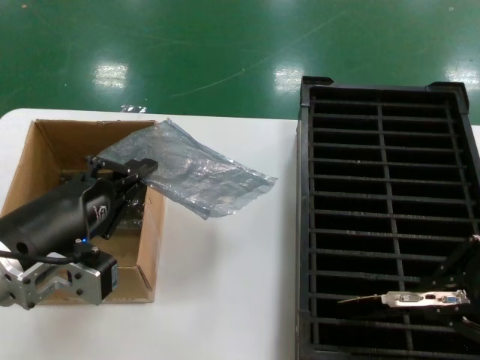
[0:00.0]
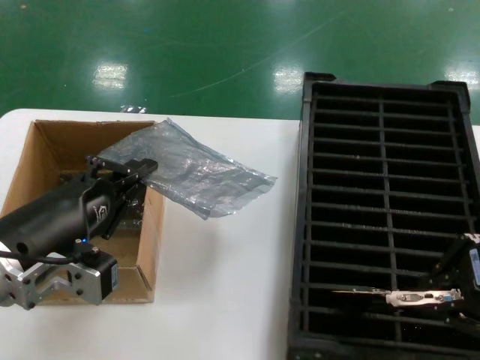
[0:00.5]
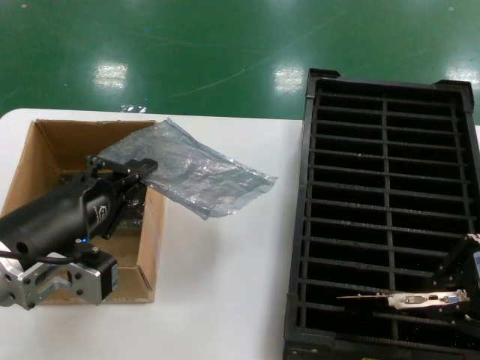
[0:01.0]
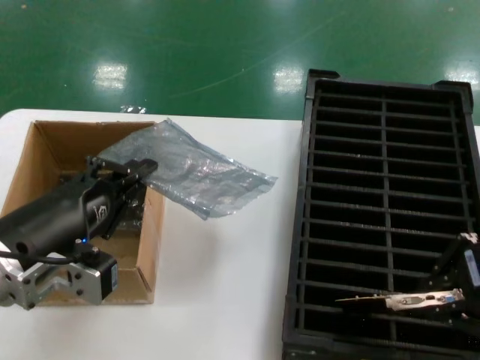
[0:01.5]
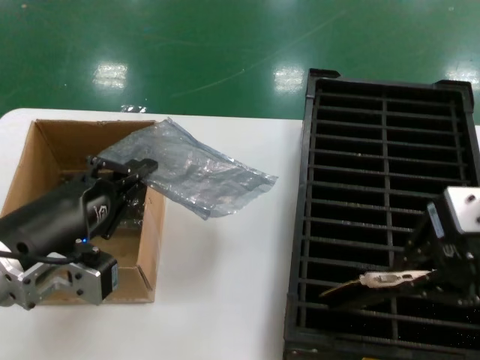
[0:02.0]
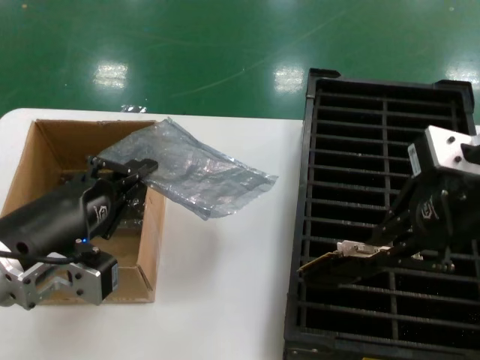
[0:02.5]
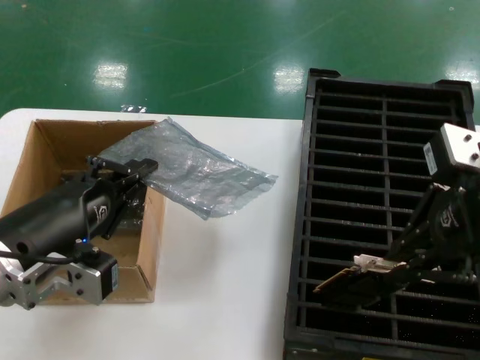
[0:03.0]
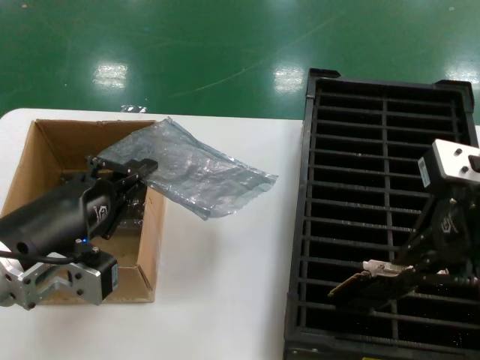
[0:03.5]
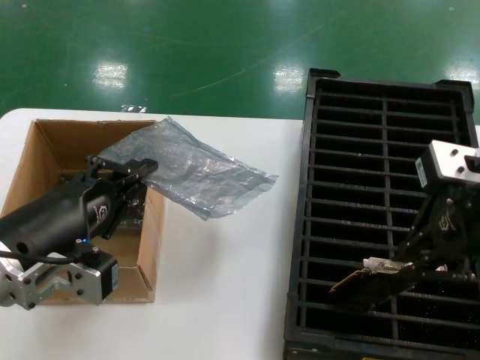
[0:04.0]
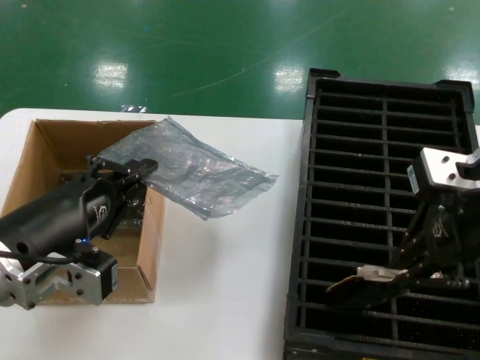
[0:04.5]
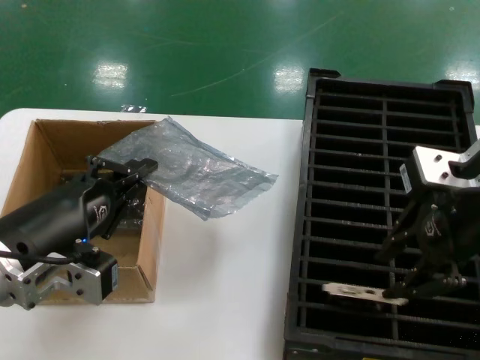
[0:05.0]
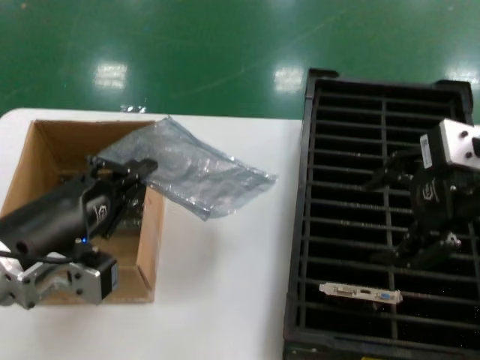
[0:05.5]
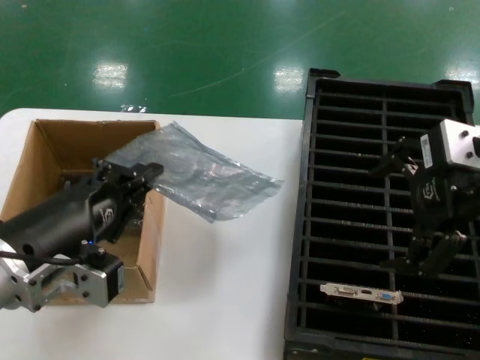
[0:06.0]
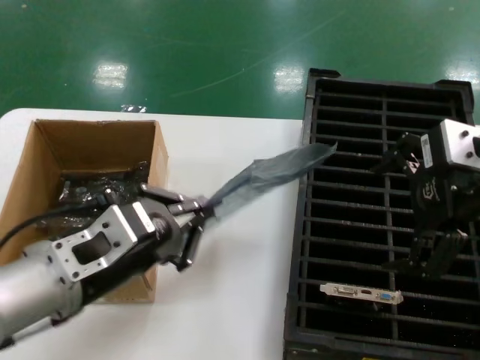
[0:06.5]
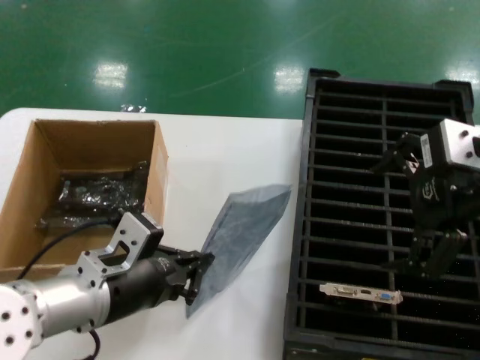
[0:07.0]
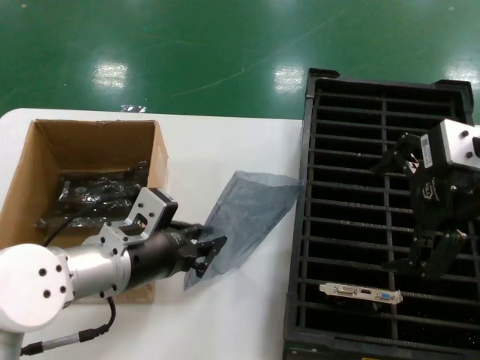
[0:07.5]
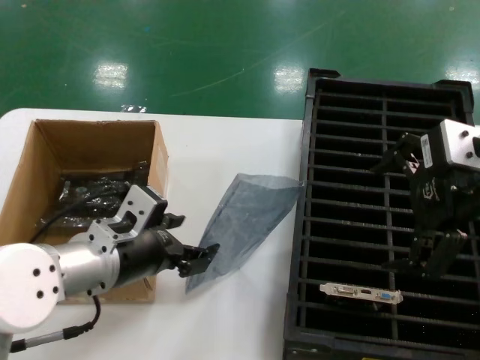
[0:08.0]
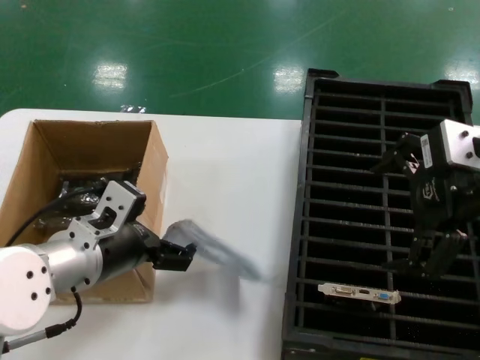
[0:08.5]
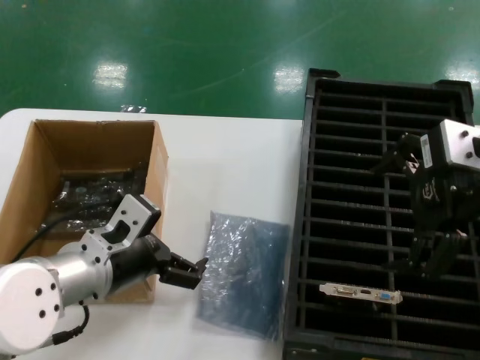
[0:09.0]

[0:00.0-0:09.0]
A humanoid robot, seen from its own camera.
Task of the whole recording: take out graphics card from box remove packaging put into black container.
Step, 0:00.0 to 0:04.5: Place the hard disk in the hard disk enclosure.
Step, 0:05.0 to 0:08.5: Place the down the bag.
0:00.0 to 0:02.0: The right hand shifts approximately 5 cm forward.
0:02.0 to 0:04.5: The right hand changes place by approximately 5 cm.
0:04.5 to 0:07.0: The left hand changes place by about 10 cm.
0:07.0 to 0:09.0: The hands move only a little.

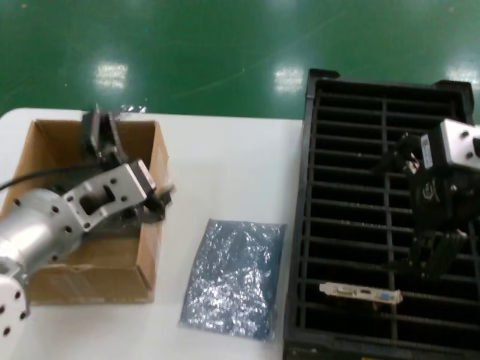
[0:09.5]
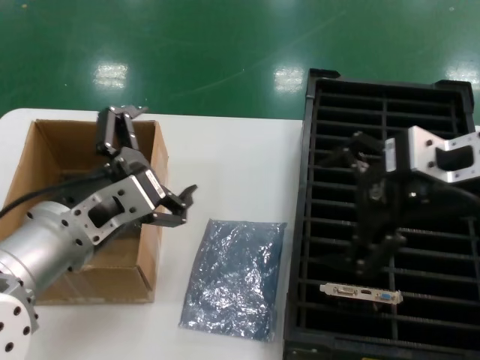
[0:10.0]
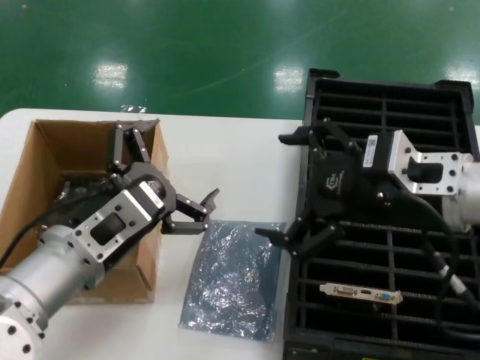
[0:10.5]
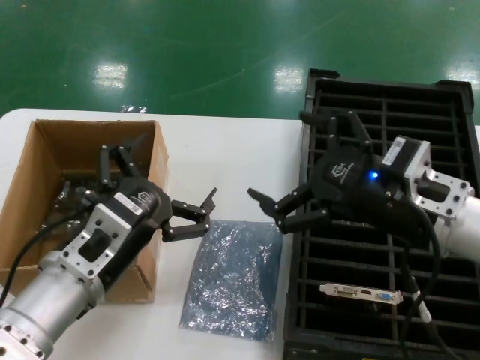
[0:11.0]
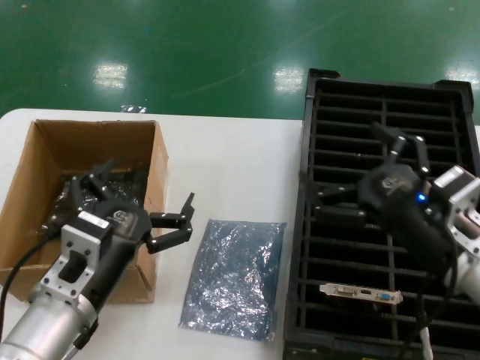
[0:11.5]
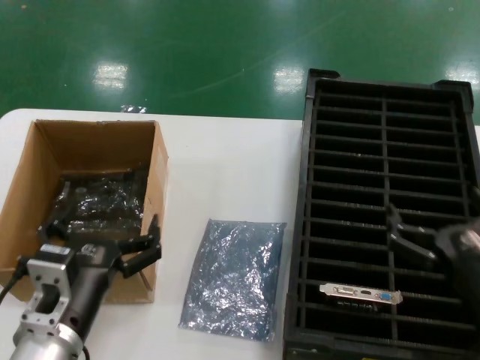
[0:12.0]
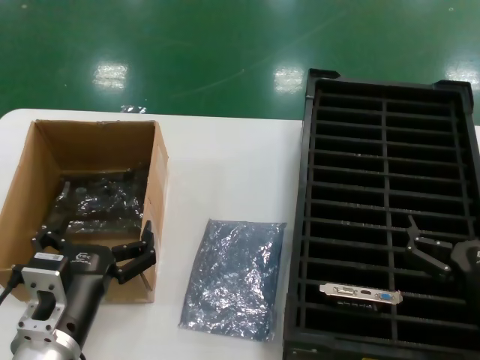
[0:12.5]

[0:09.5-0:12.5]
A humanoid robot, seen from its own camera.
Task of the whole recording: take out graphics card from box remove packaging put into black container.
0:09.5 to 0:11.0: The right hand moves downward, about 15 cm. The left hand heads downward, covering roughly 5 cm.
0:11.0 to 0:12.5: The right hand is displaced downward and backward by approximately 15 cm. The left hand shifts about 10 cm downward.
